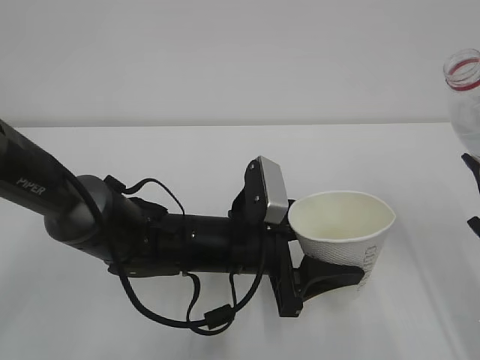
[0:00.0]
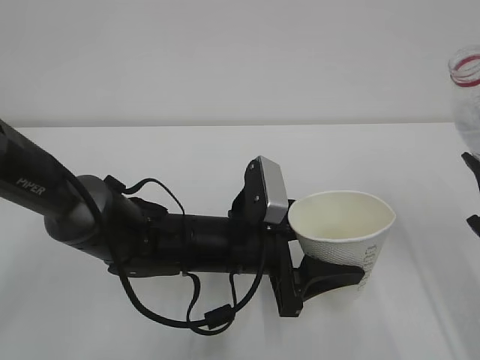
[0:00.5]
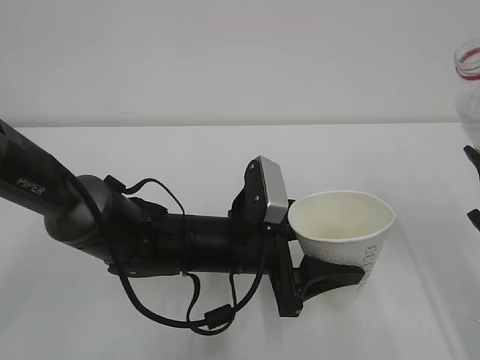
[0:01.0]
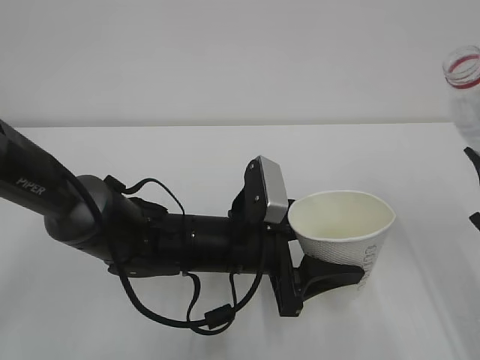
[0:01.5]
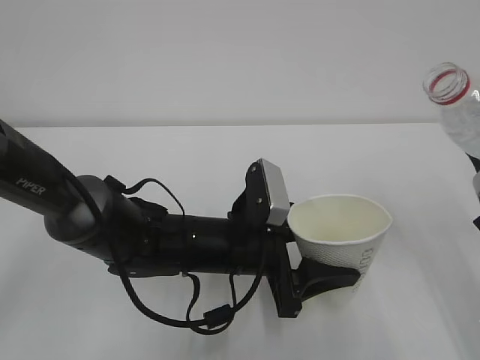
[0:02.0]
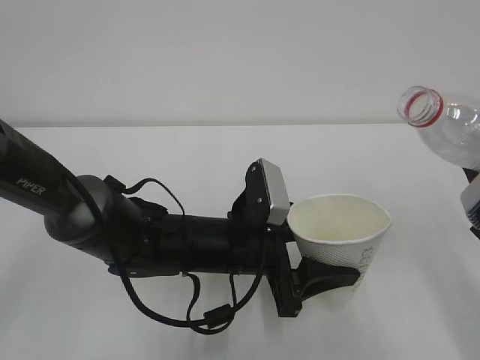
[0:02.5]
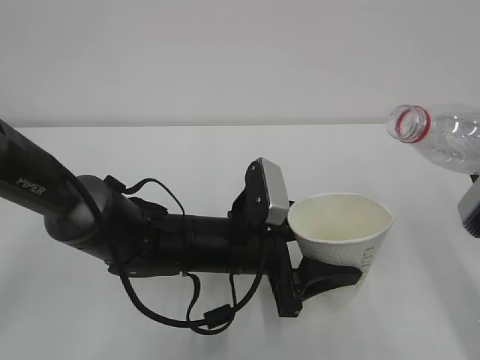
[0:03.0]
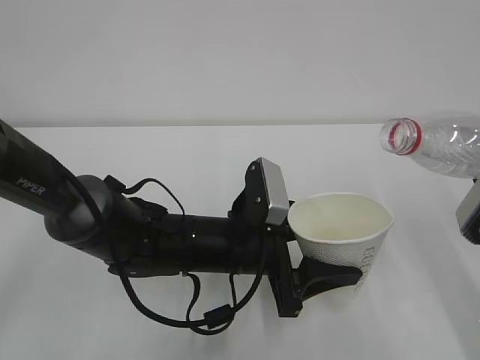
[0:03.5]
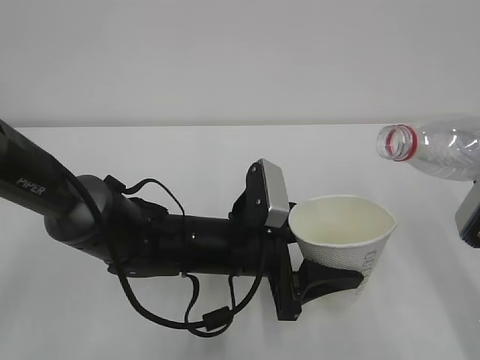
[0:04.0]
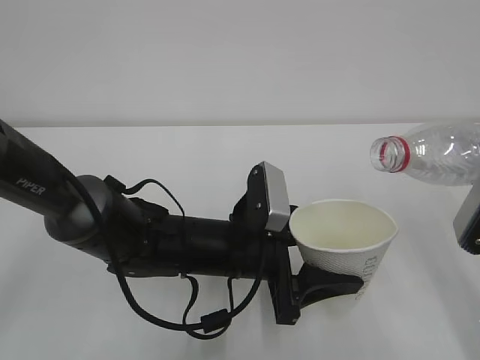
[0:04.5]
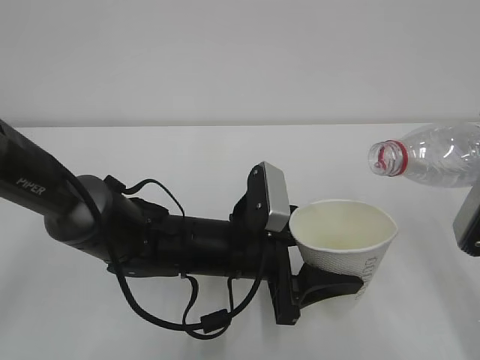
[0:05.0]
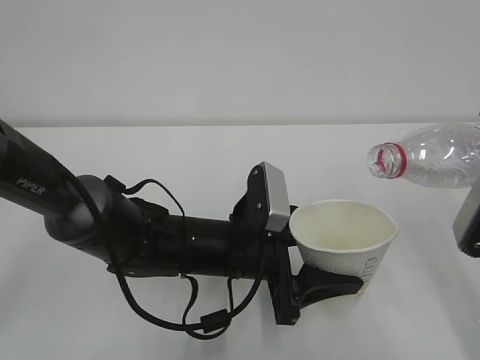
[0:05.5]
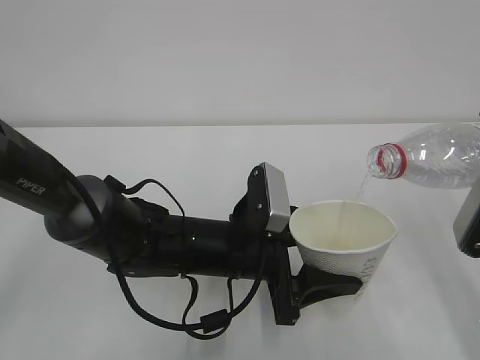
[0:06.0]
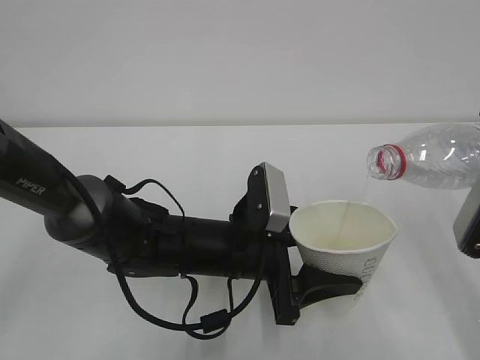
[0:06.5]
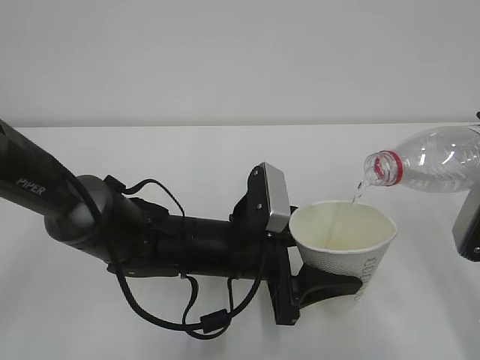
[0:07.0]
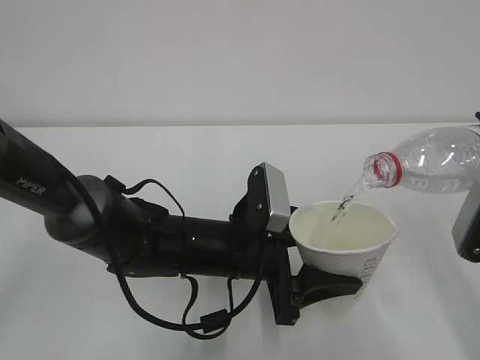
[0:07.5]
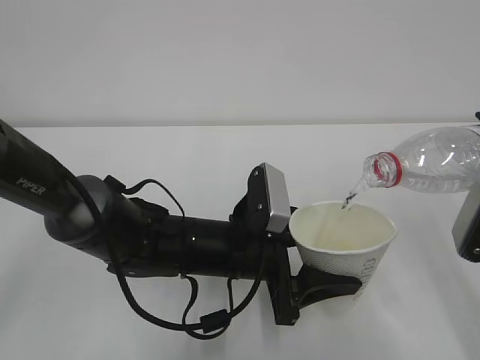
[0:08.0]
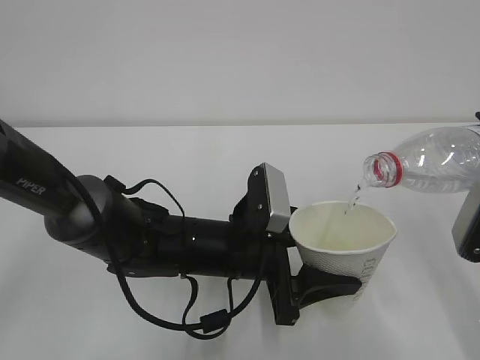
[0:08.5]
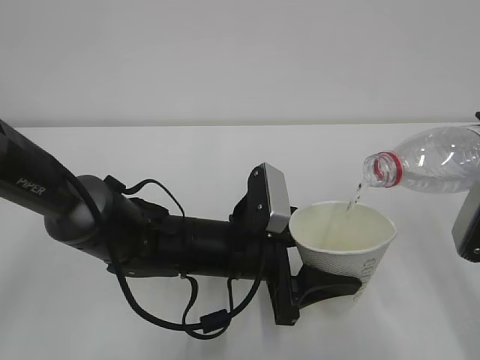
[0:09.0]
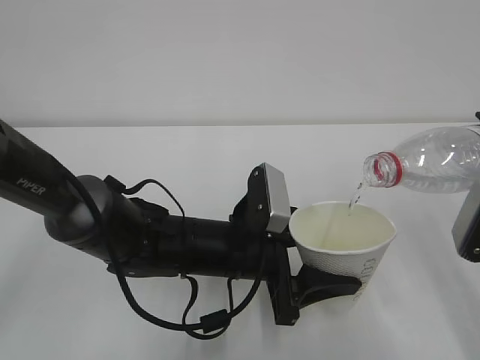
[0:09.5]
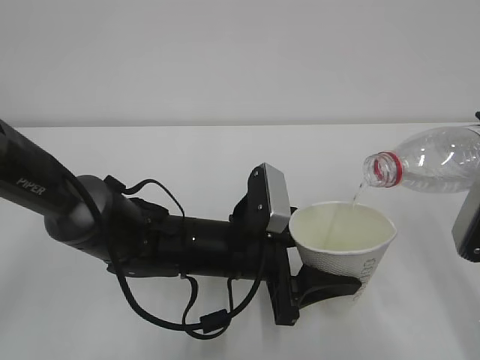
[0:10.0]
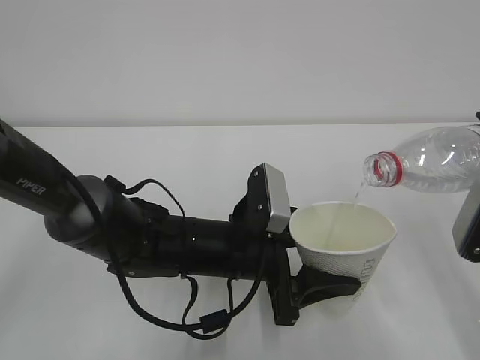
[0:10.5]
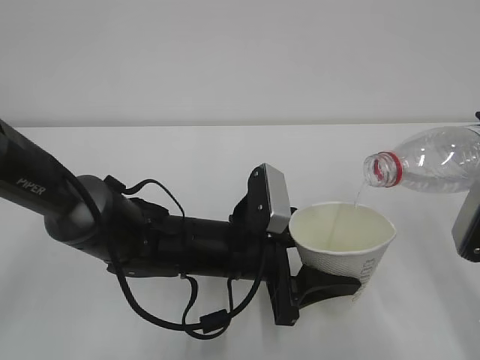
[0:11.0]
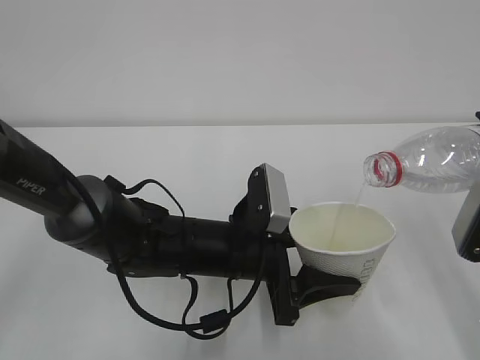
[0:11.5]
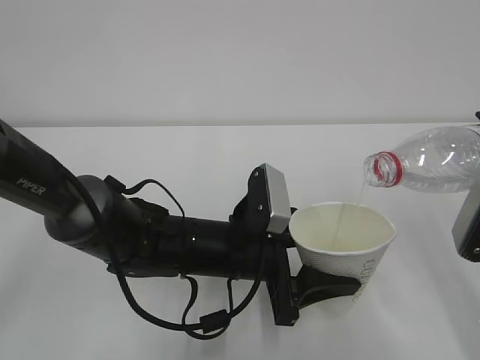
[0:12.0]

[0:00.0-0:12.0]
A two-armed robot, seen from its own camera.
0:00.0 to 0:02.0: The grippers move only a little.
0:04.0 to 0:06.0: The grippers make only small movements.
0:06.0 to 0:12.0: Neither gripper changes place.

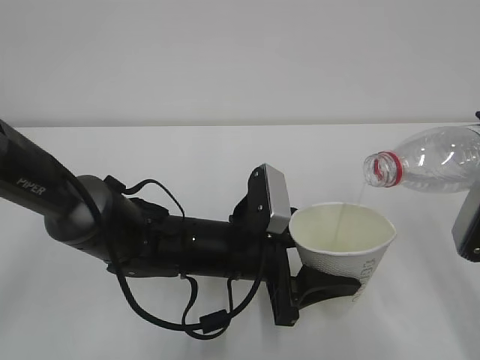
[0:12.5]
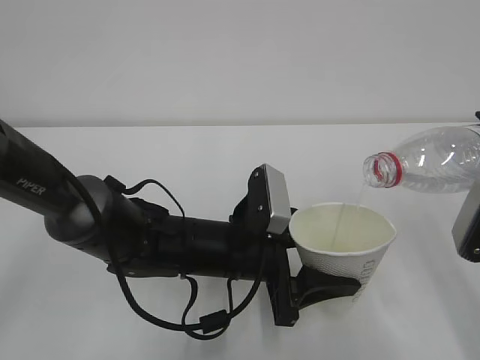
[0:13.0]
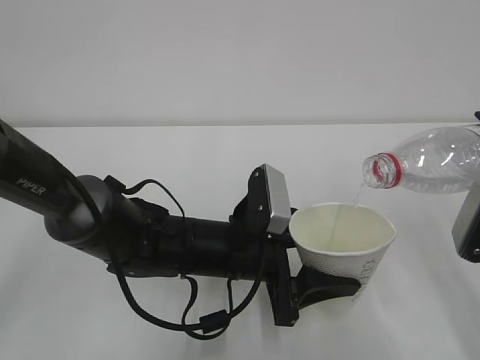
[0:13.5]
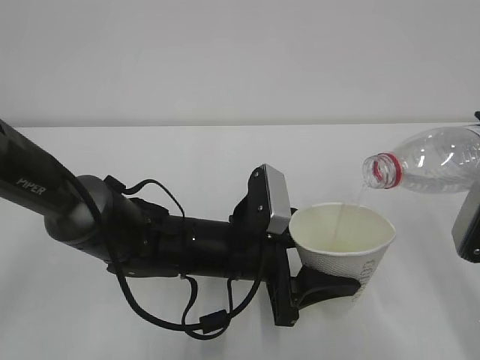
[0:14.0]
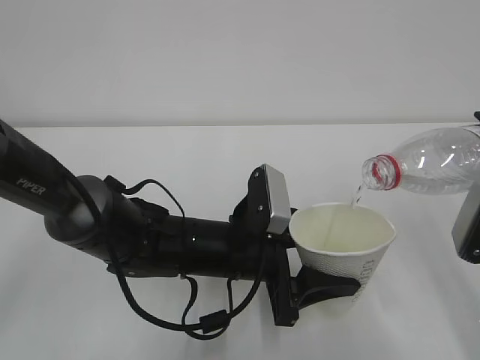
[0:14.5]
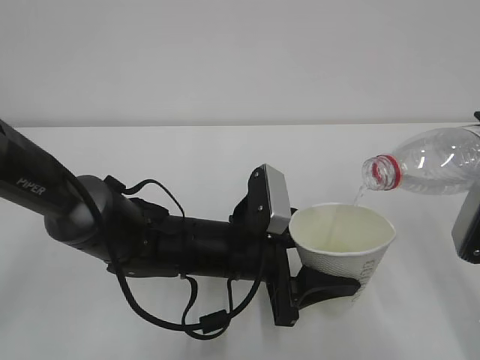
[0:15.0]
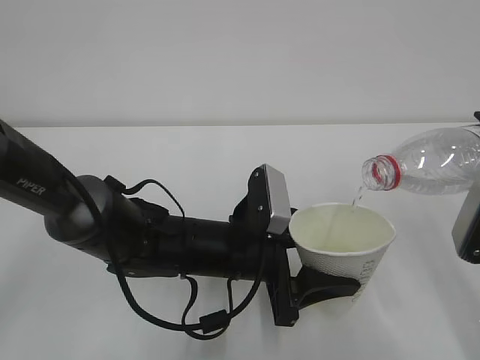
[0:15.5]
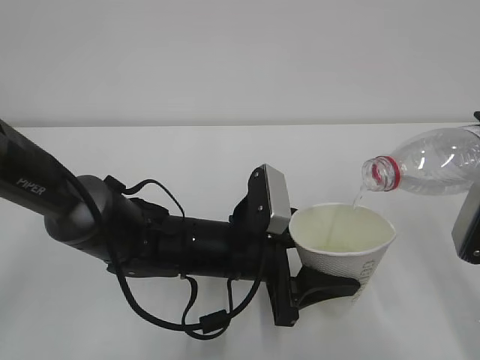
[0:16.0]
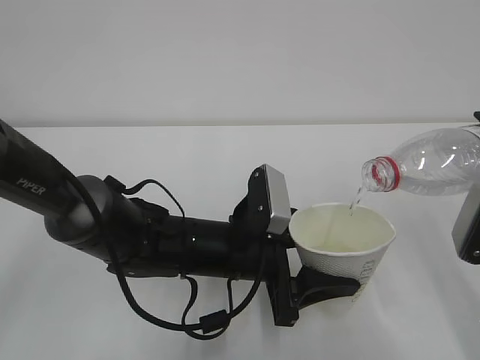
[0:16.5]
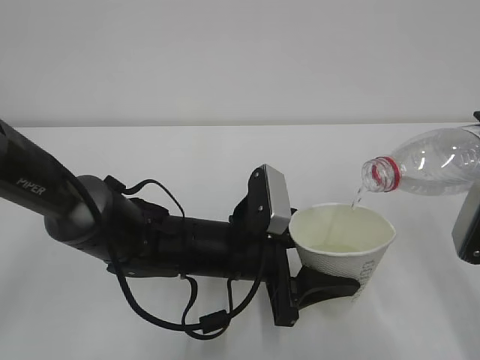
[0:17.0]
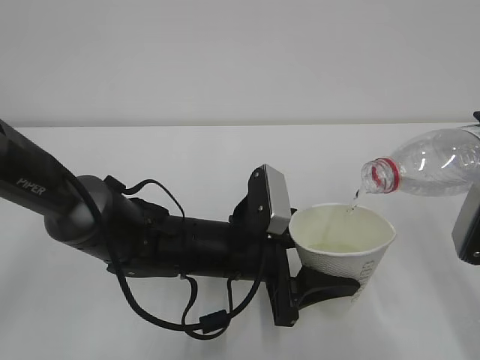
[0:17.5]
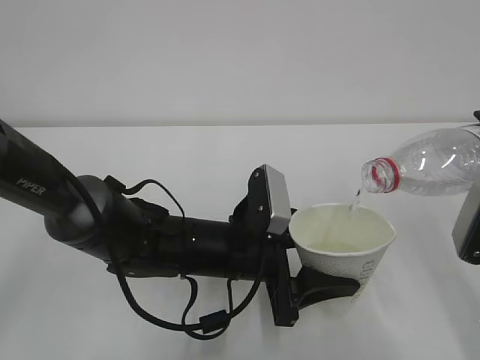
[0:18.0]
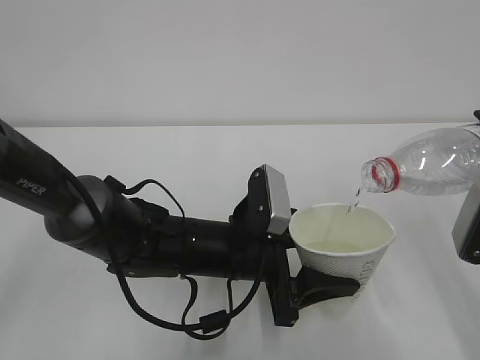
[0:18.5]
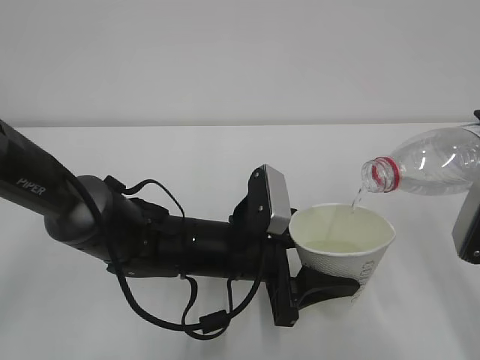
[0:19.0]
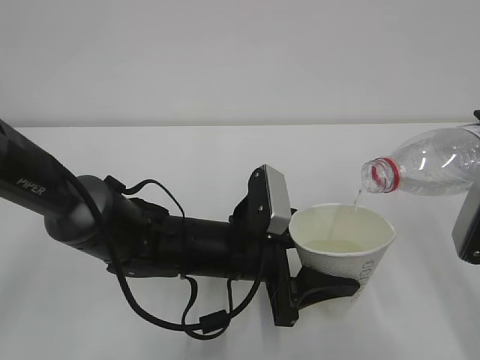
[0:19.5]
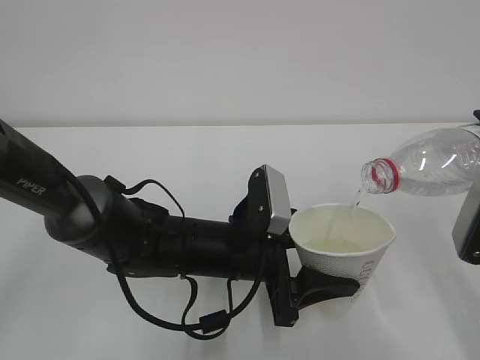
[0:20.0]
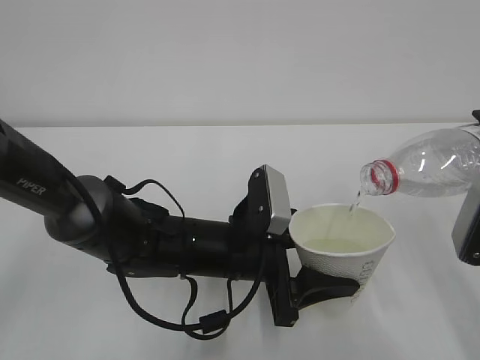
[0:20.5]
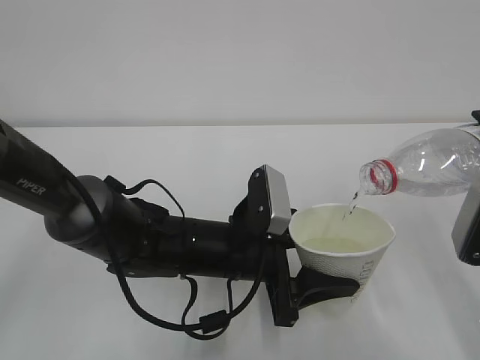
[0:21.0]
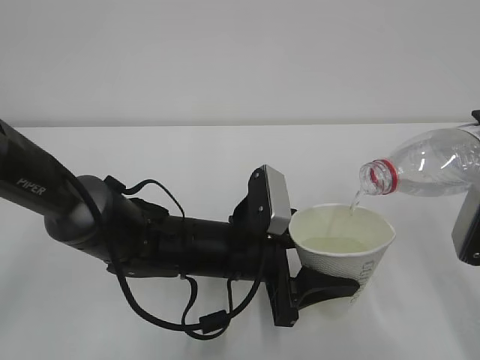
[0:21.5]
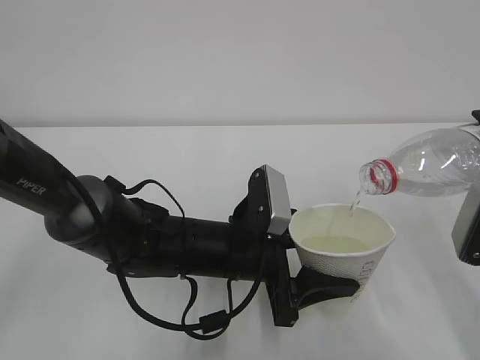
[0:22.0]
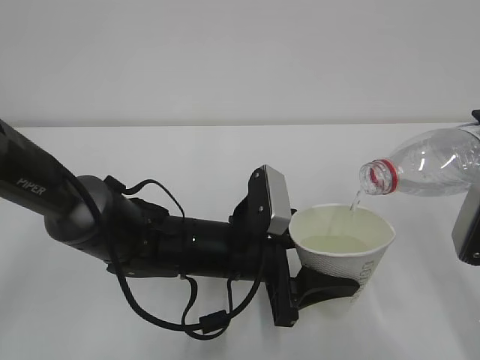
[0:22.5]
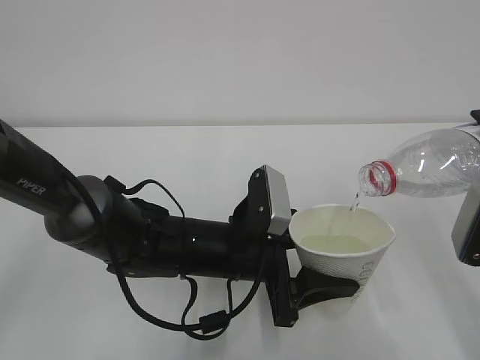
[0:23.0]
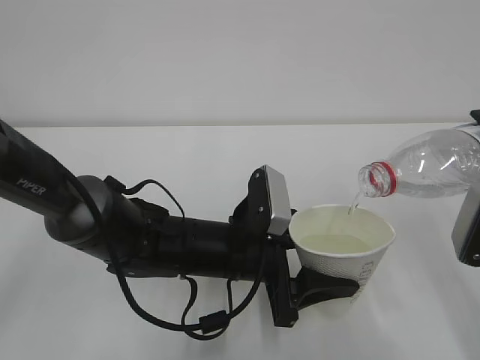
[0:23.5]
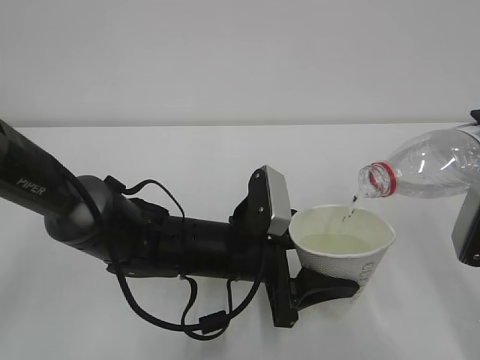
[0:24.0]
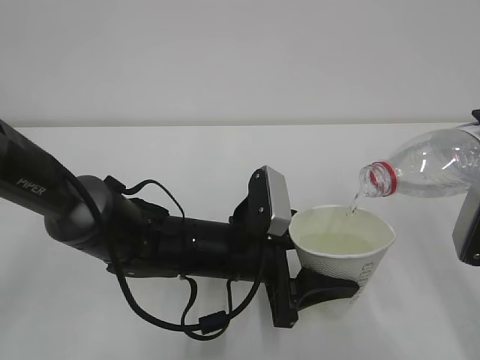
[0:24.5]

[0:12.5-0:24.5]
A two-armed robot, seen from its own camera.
0:12.5 to 0:22.5: Both grippers stay put.
0:22.5 to 0:24.5: Both grippers stay about where they are.

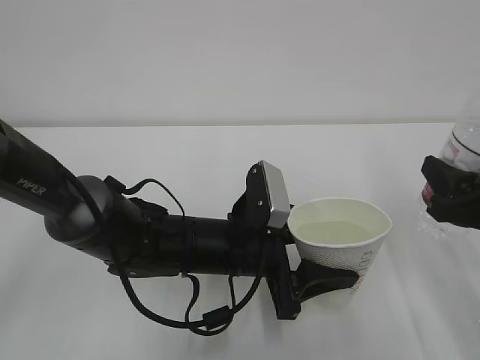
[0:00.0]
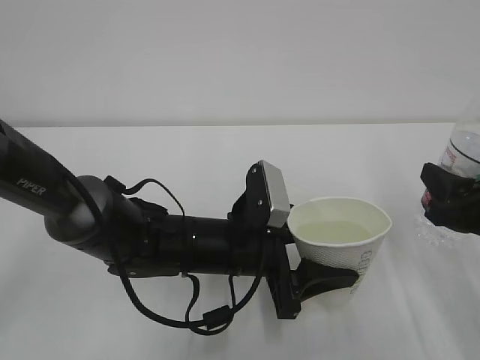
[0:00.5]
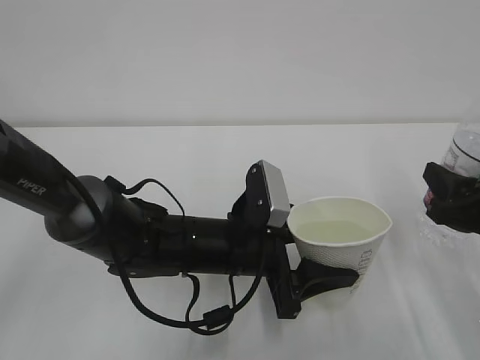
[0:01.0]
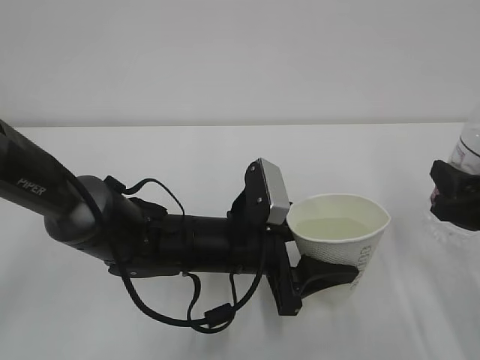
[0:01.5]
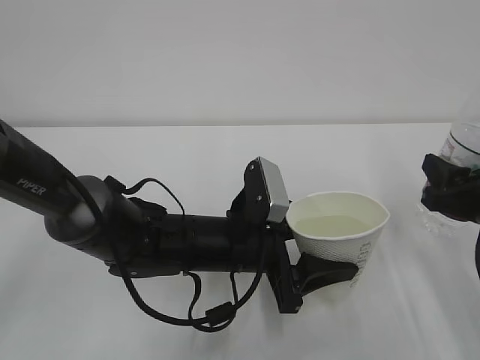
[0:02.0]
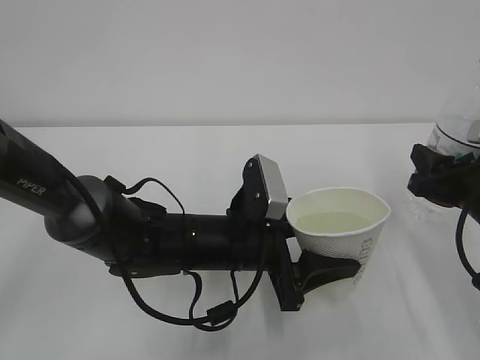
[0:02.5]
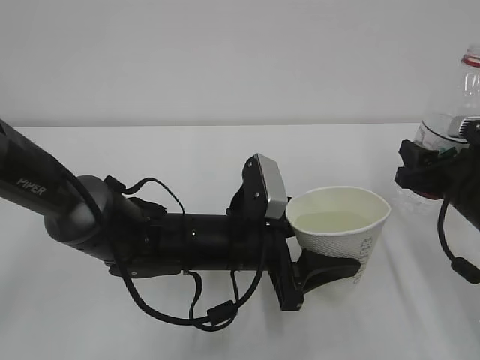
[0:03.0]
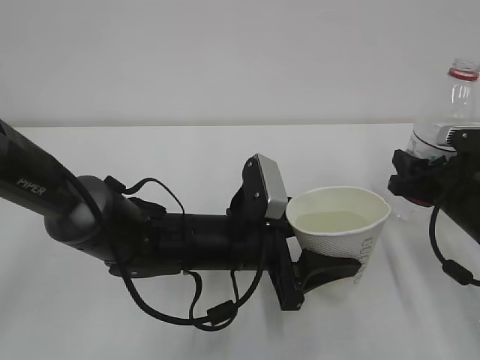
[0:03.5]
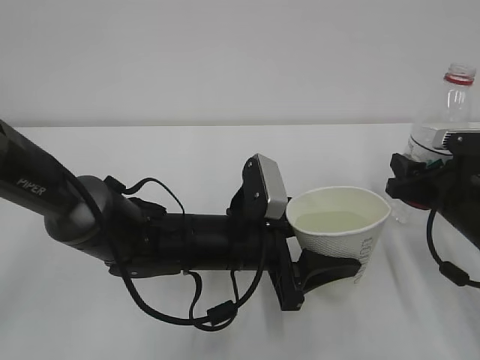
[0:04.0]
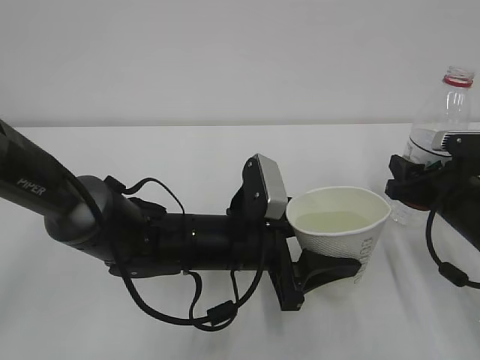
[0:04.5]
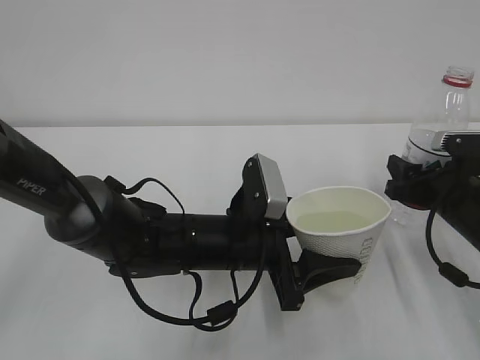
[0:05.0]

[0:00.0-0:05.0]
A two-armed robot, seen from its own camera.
0:00.0 to 0:02.5: The right gripper changes place by some 5 cm.
0:02.5 to 0:05.0: The right gripper ends up some 5 cm from where it was.
